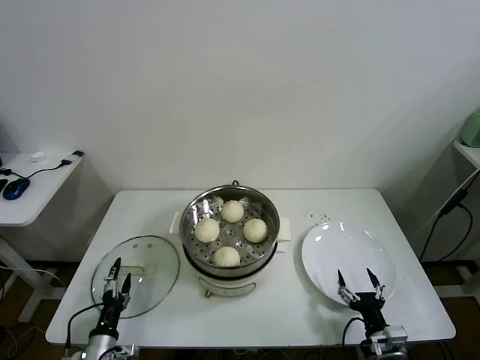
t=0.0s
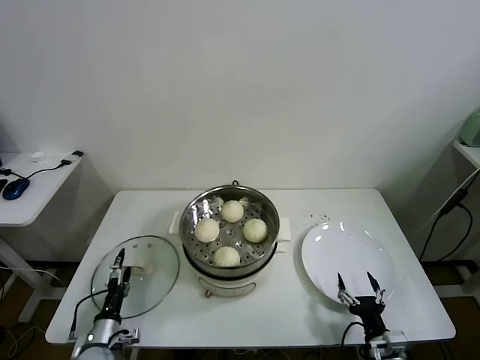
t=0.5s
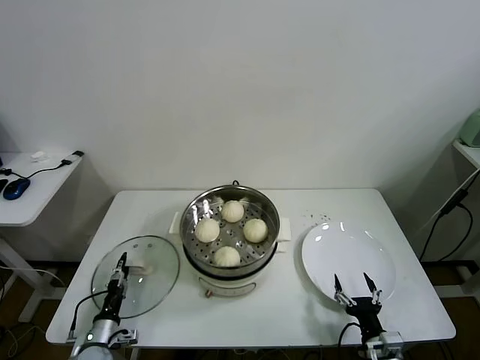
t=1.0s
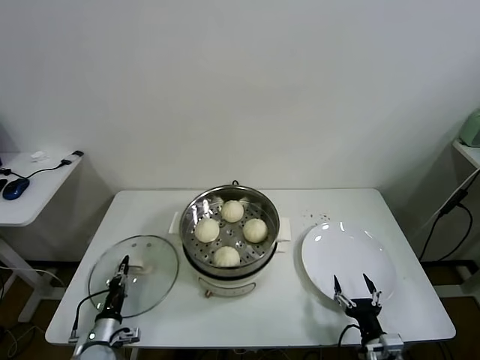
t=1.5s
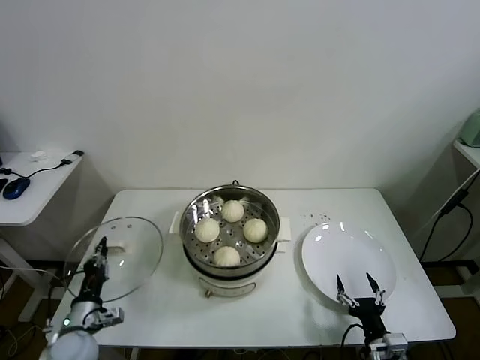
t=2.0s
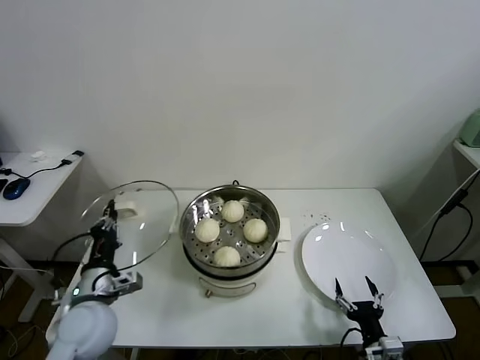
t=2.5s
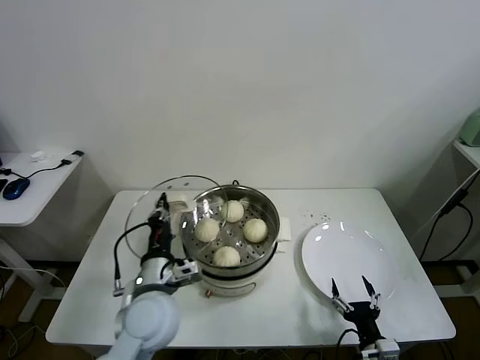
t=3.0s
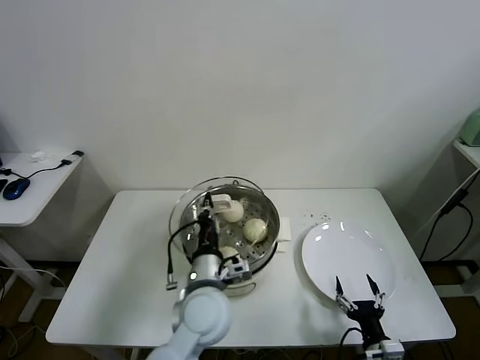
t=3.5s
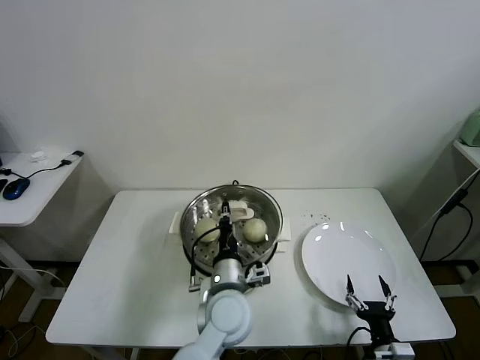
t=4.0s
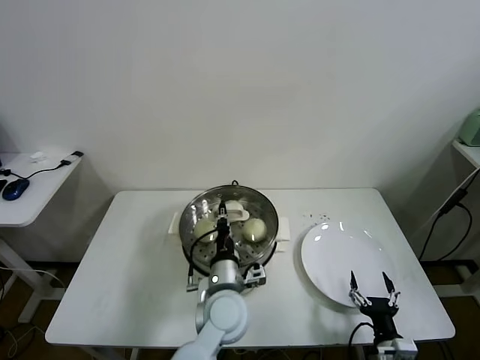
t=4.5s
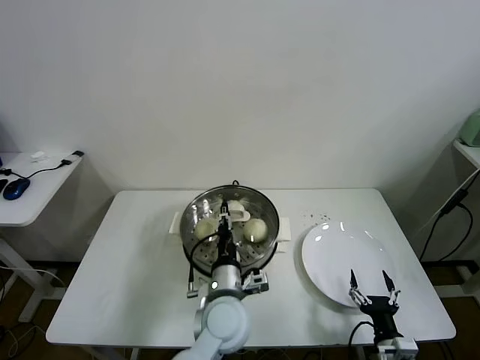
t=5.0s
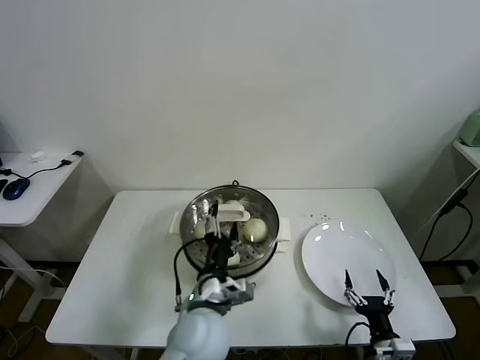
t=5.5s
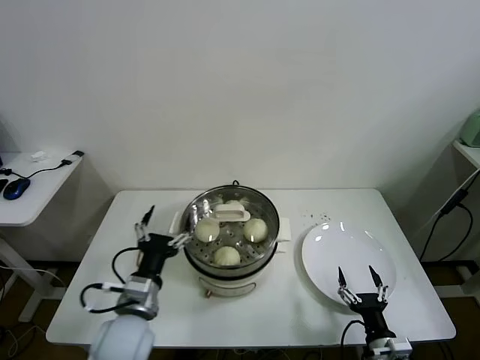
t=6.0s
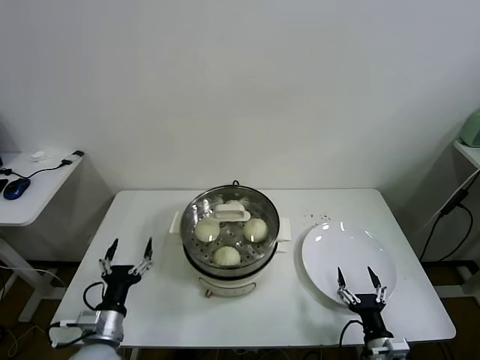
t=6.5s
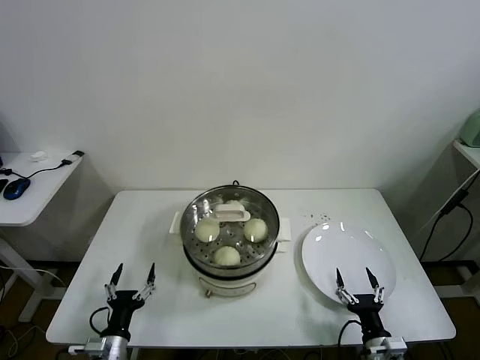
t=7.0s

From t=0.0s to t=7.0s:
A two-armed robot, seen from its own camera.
Task of the whole recording: take steamed baozi put them in steamer.
Step, from t=1.5s to t=5.0s: Place the pot lid on the steamer with left gripper.
From t=0.0s to t=2.0s: The left gripper moves upward and forward, about 10 cm, and closes its fingers.
From t=2.0s to t=3.5s: The left gripper shifts some 30 cm to the right and upward.
From t=3.5s to t=5.0s: The left gripper changes place by roughly 5 cm, and opens.
From t=5.0s to t=7.0s: The left gripper travels to the left and downward by approximately 30 cm, and opens.
